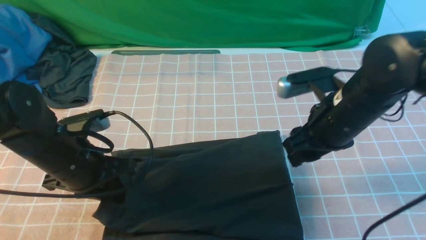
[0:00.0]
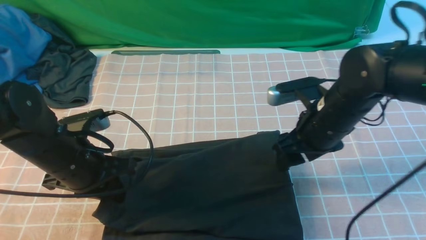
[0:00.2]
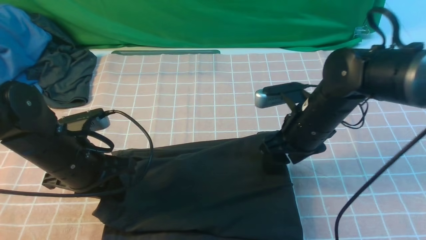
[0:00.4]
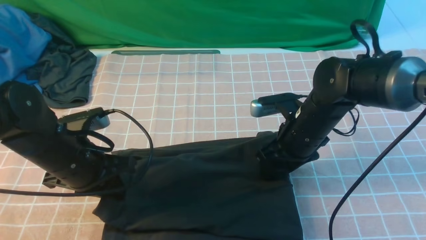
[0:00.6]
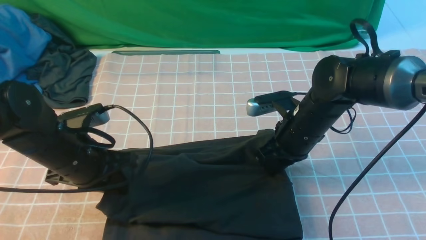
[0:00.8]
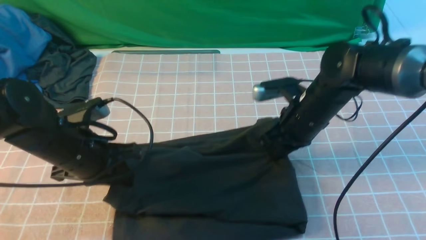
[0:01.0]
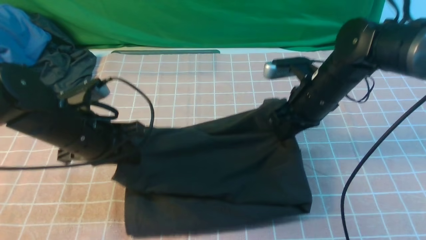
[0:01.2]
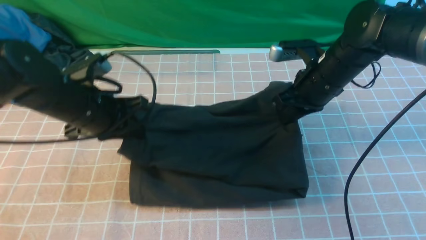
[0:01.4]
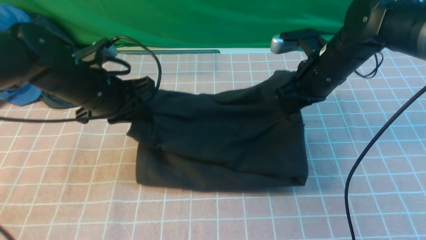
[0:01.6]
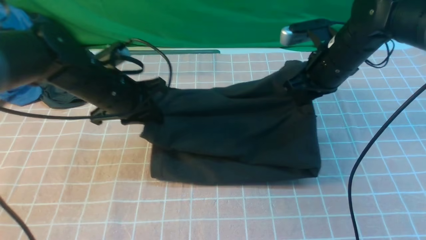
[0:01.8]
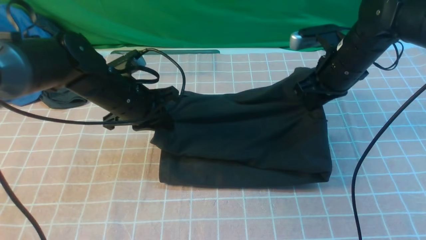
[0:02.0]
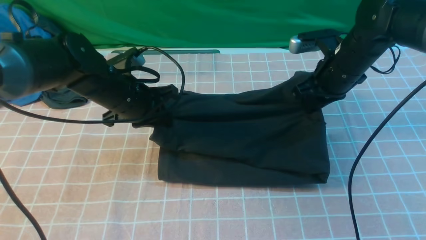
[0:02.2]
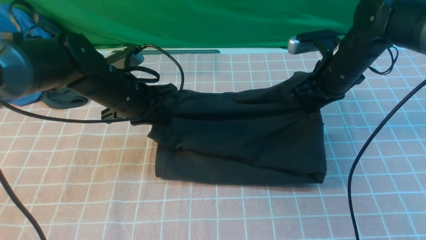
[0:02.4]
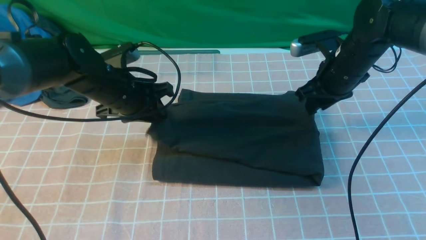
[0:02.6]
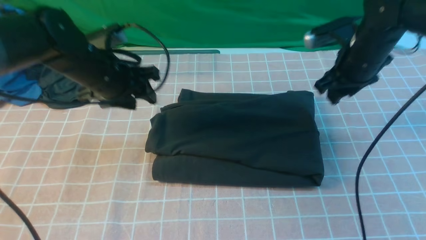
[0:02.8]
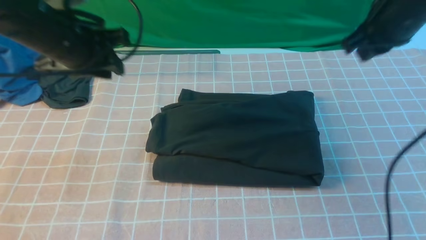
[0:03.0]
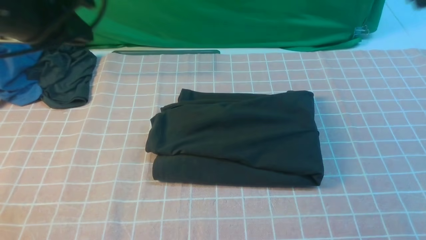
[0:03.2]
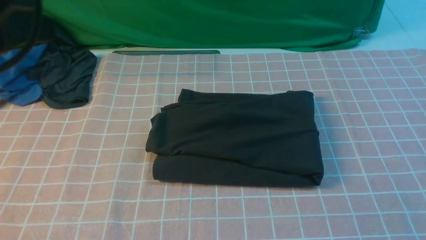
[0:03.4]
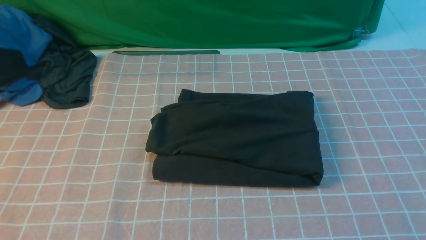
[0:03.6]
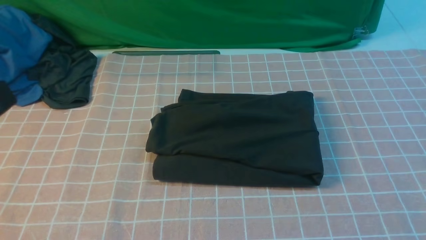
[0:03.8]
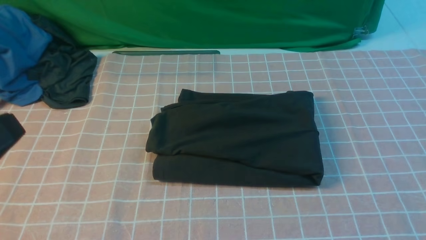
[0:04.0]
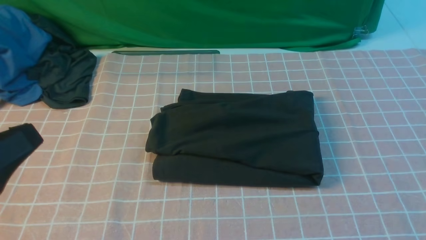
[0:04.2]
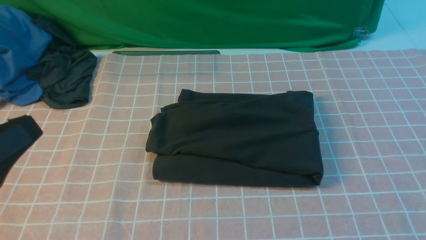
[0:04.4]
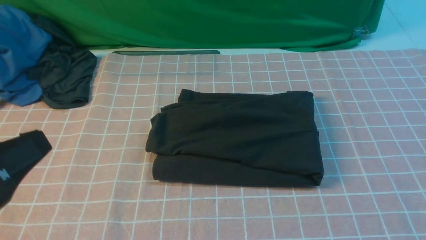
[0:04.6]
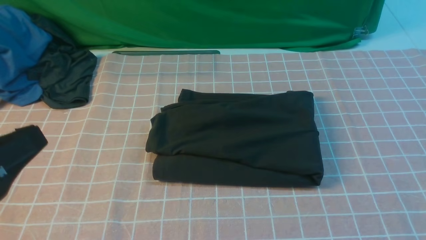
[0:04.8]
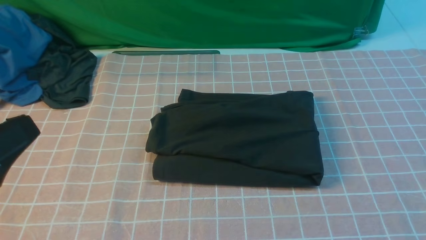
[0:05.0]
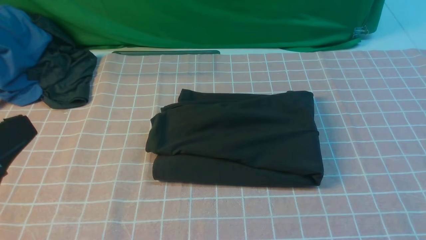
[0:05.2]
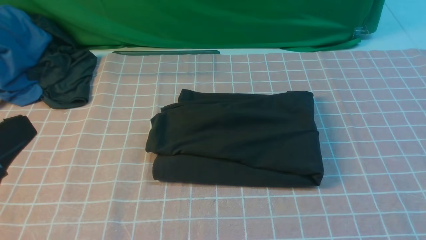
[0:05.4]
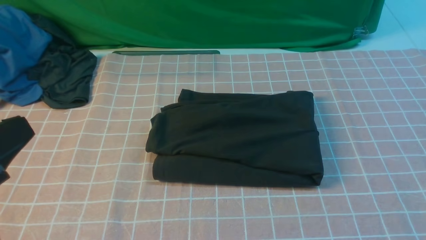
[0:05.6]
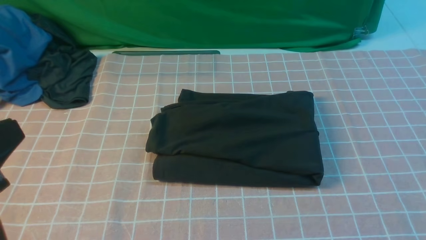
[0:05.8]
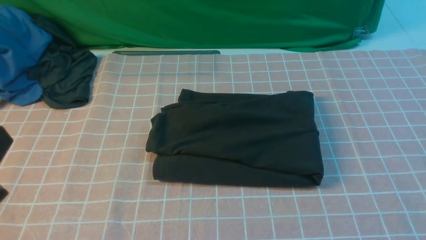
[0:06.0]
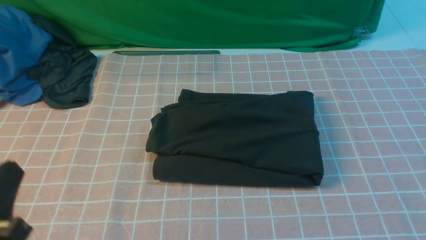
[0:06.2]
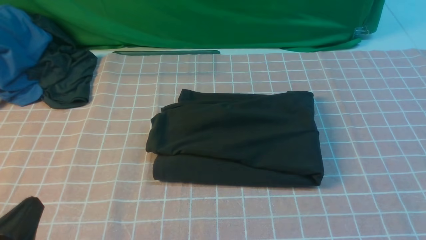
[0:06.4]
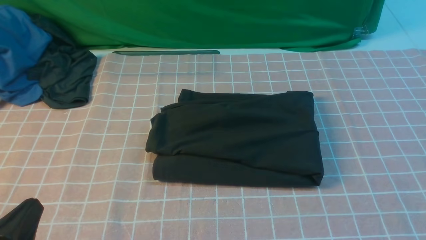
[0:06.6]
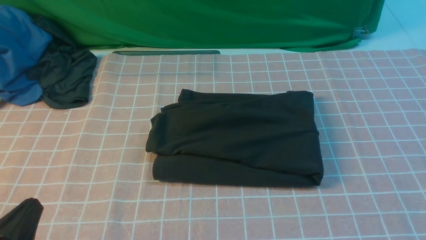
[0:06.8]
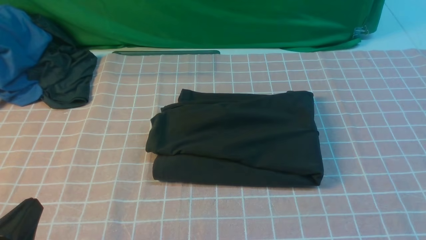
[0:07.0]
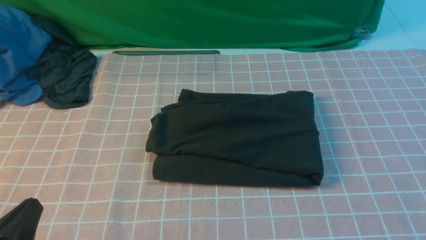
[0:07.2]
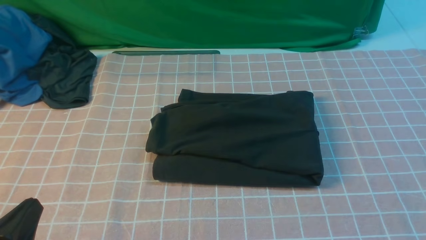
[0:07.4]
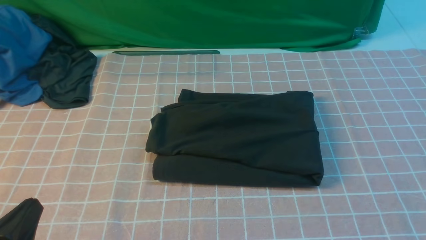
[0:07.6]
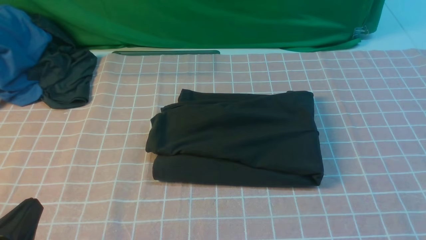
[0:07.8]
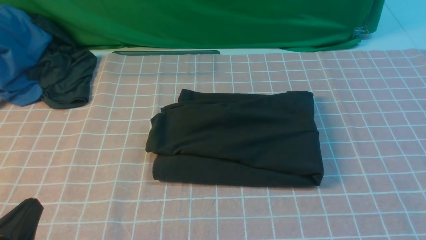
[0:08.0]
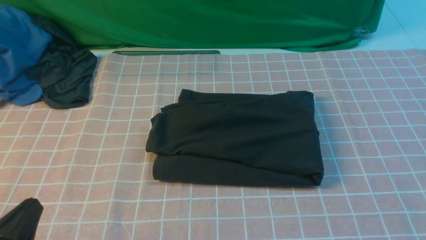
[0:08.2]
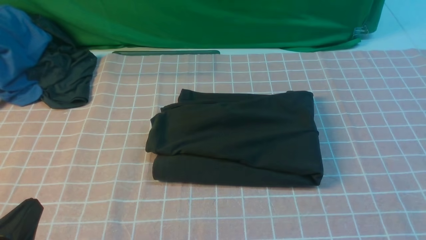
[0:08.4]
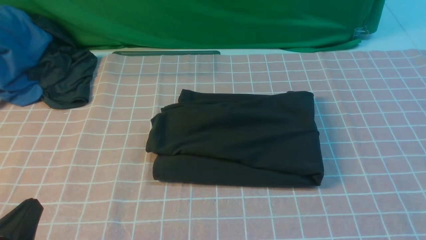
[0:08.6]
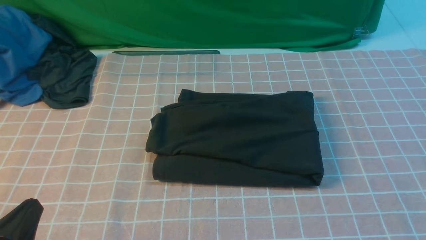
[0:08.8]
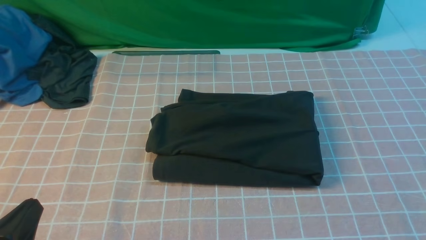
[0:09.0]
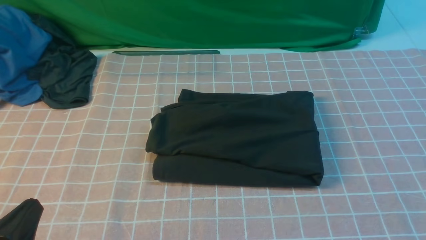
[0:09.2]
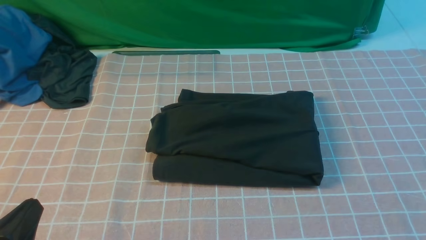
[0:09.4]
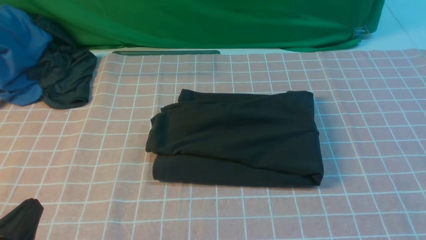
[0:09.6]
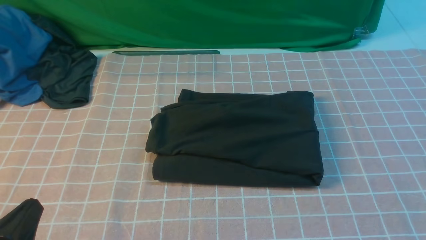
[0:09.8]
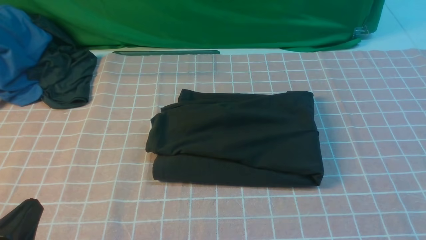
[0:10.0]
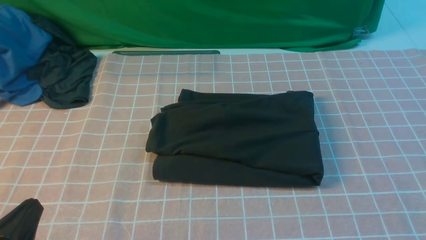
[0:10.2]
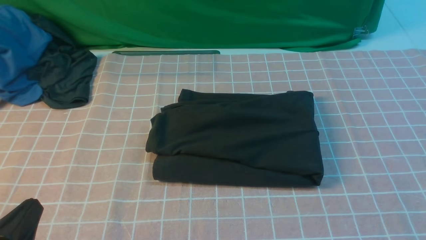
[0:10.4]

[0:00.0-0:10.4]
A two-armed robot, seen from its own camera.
0:00.0 to 0:01.4: The grippers both shift forward by approximately 10 cm. The right gripper closes.
0:01.4 to 0:03.0: The left gripper travels upward by about 10 cm, while the right gripper shifts about 15 cm upward and to the right.
0:03.0 to 0:04.4: Both grippers move backward, roughly 30 cm. The left gripper closes its fingers.
0:06.0 to 0:07.4: The left gripper goes some 10 cm downward.
0:09.0 to 0:10.4: The two grippers keep their place.
